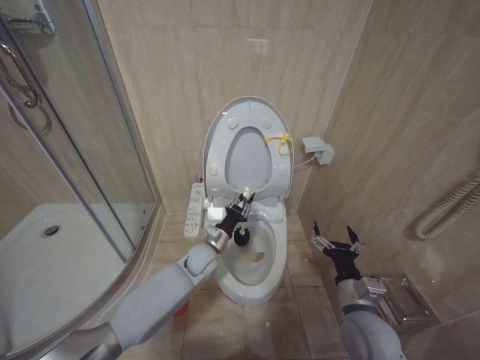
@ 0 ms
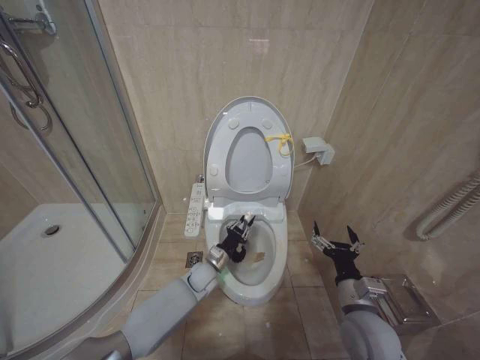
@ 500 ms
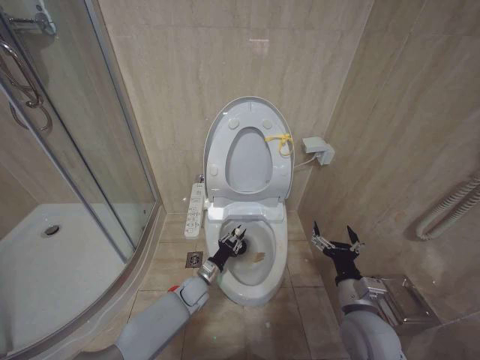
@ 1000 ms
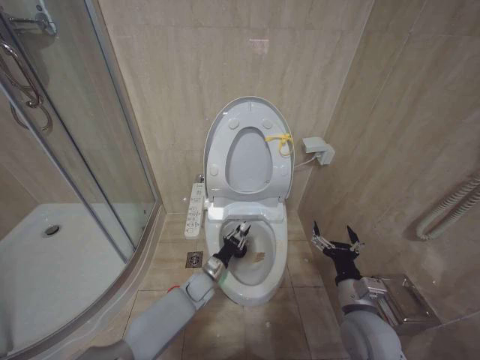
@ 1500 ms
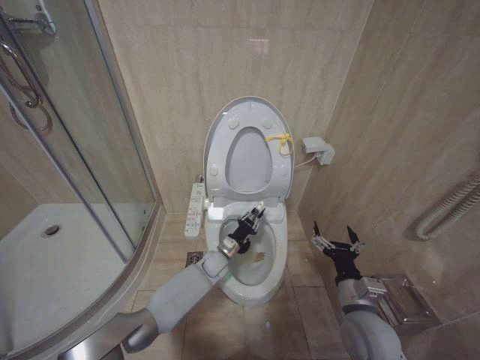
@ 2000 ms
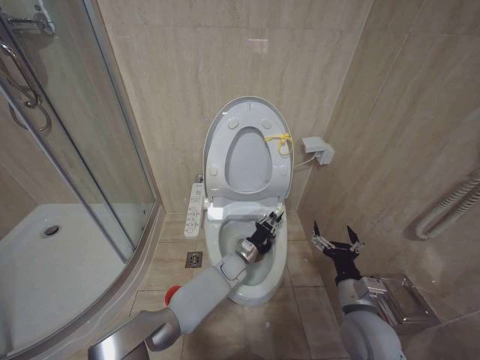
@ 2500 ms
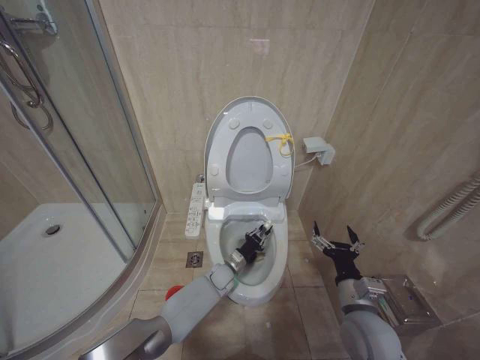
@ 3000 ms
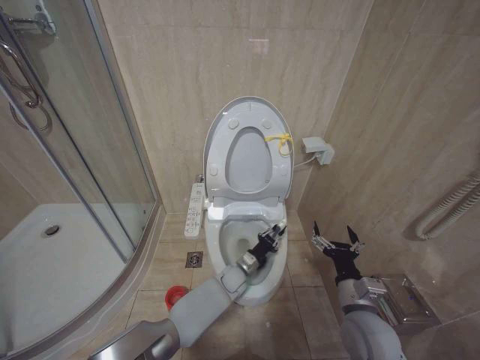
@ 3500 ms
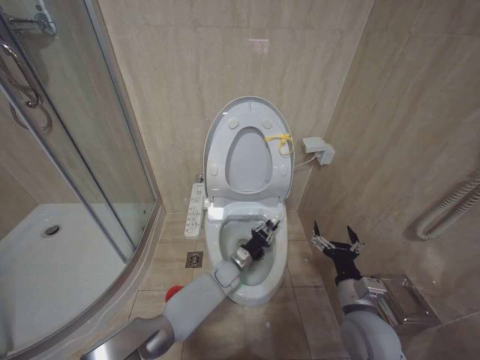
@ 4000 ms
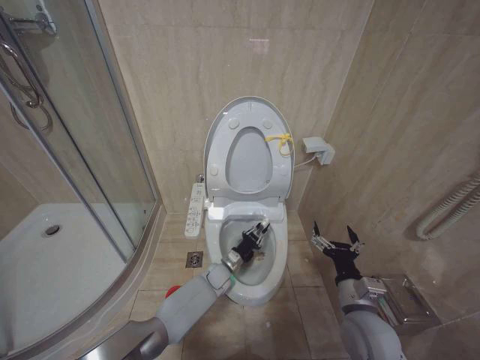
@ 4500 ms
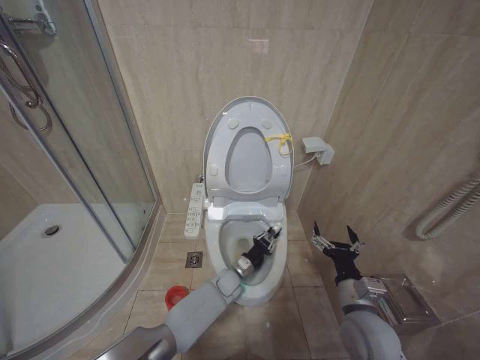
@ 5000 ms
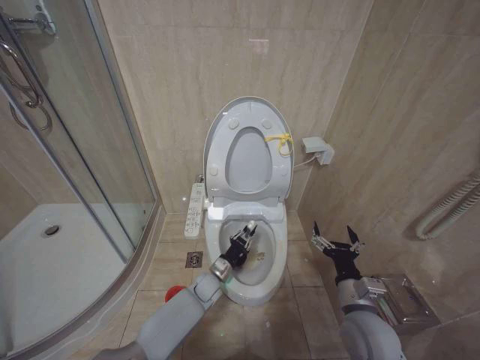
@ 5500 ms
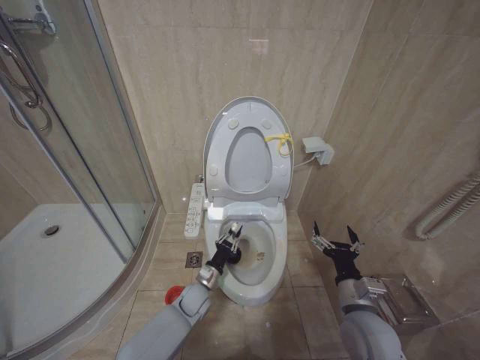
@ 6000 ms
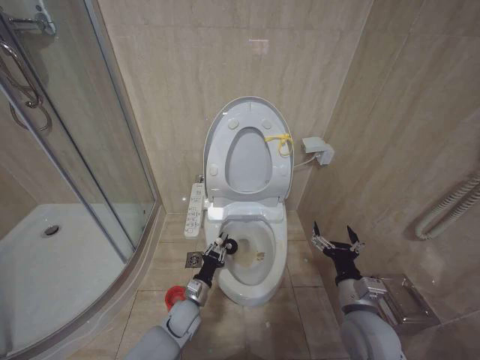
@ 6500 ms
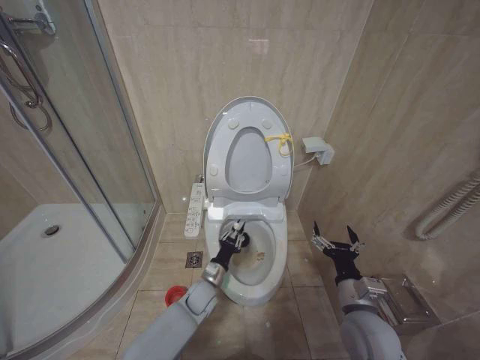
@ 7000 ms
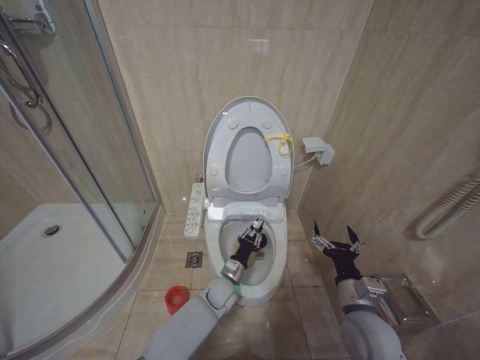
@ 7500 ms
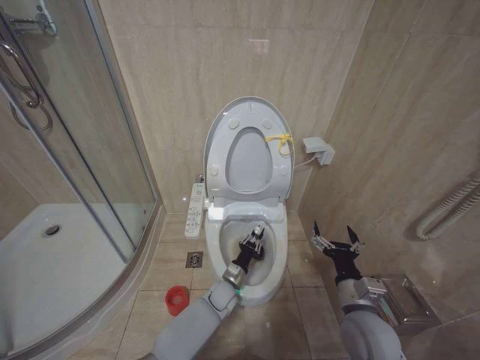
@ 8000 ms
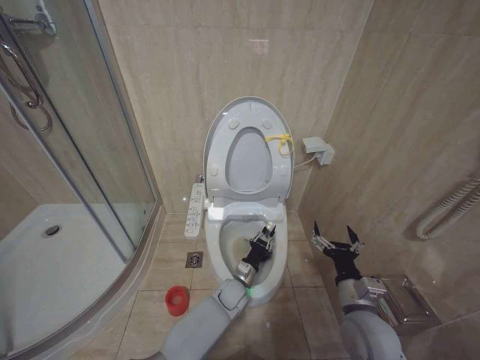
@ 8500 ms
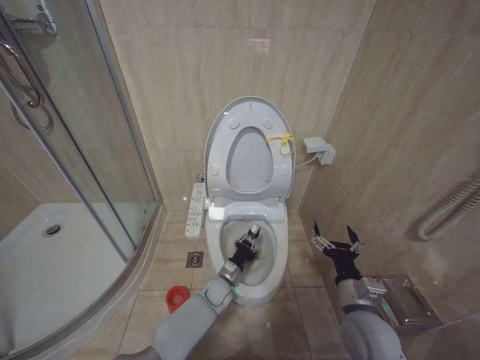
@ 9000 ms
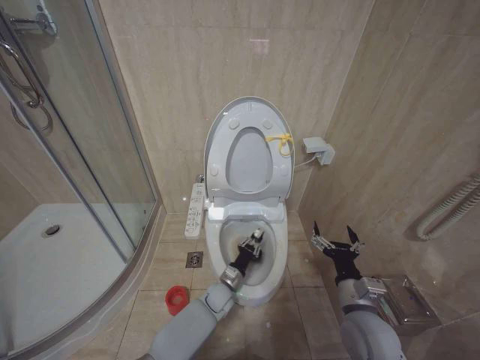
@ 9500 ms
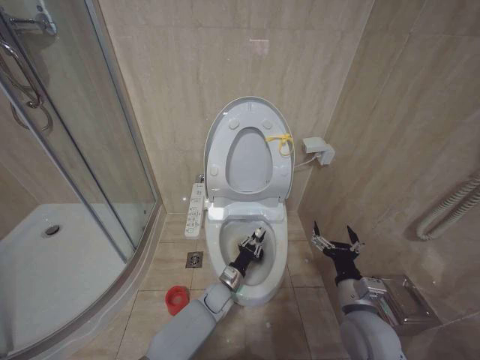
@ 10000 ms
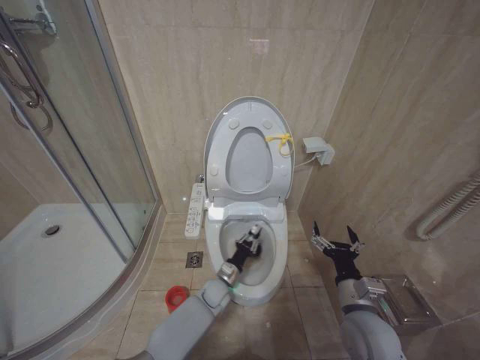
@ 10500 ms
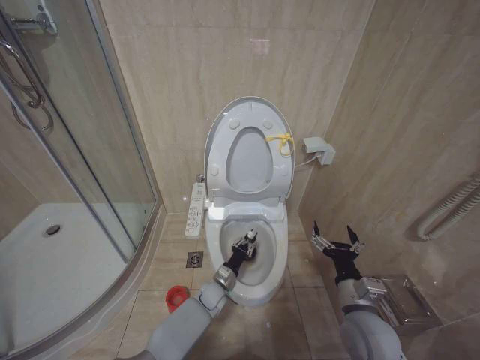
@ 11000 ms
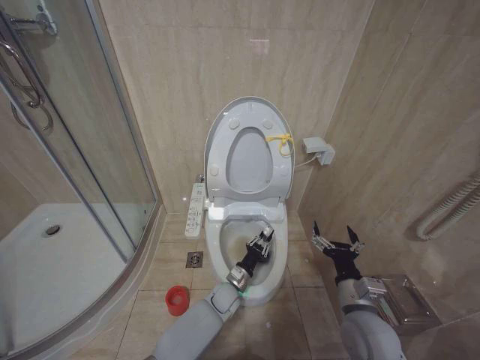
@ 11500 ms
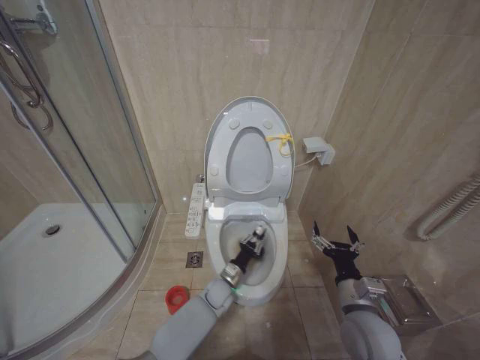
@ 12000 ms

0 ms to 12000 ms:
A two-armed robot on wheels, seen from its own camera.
Task of the whole recording: Open the toilet lid, clean the toilet bowl with a toilet brush, close the toilet lid, and flush.
0 ms to 2000 ms: The left gripper travels downward by some 10 cm.
2000 ms to 4000 ms: The left gripper swings left and right, some 10 cm each way, with 3 reversals.
4000 ms to 6000 ms: The left gripper moves to the left and backward, some 10 cm.
6000 ms to 8000 ms: The left gripper moves to the right, some 10 cm.

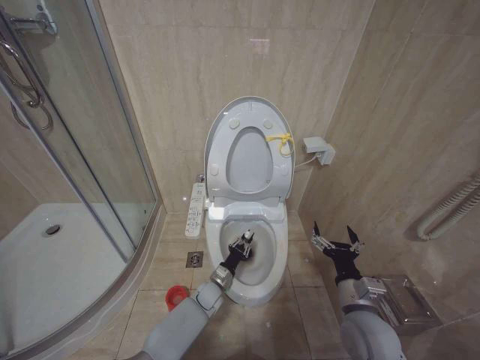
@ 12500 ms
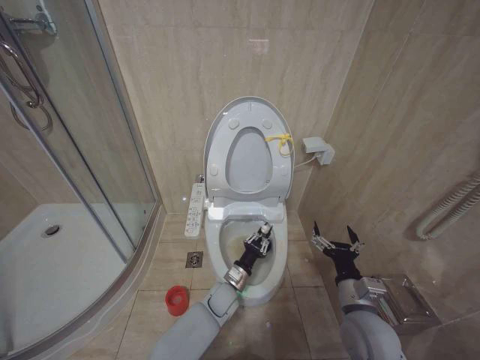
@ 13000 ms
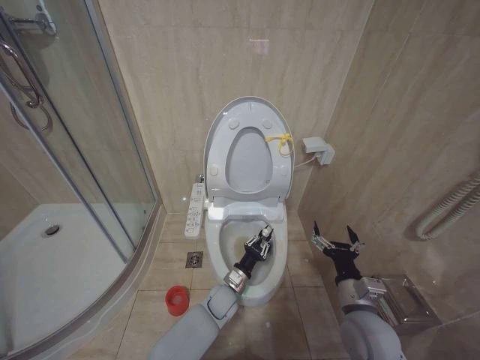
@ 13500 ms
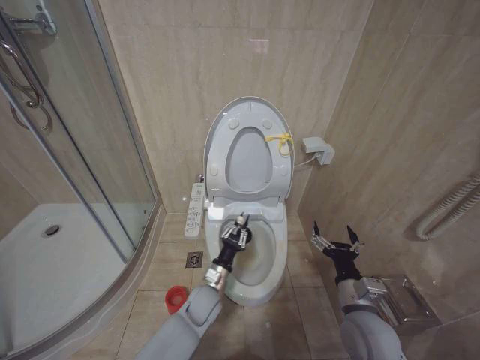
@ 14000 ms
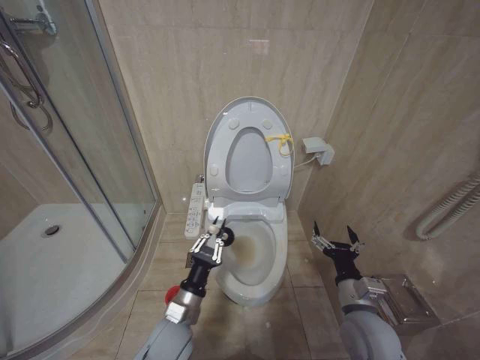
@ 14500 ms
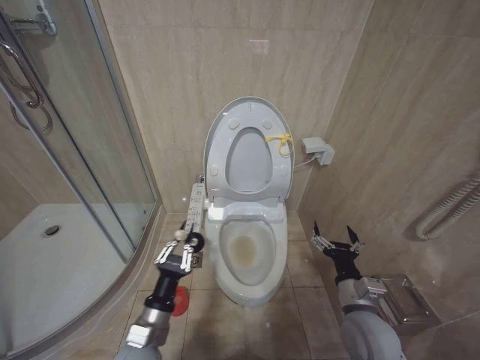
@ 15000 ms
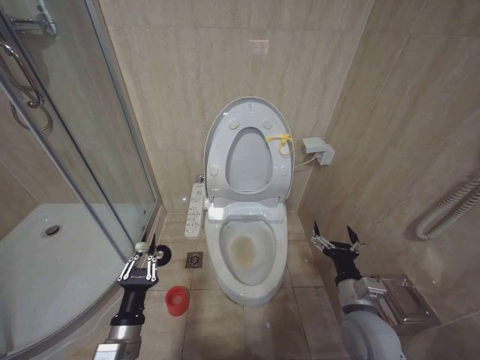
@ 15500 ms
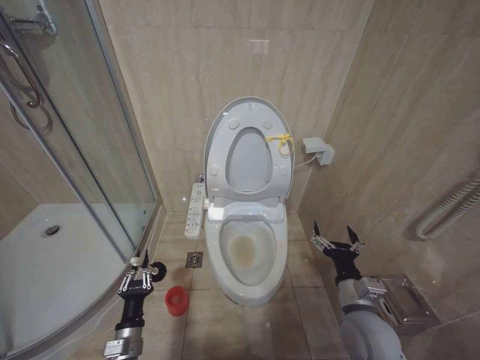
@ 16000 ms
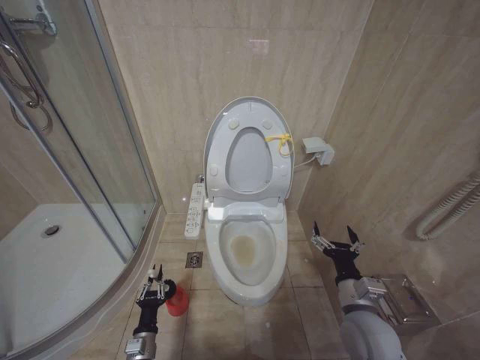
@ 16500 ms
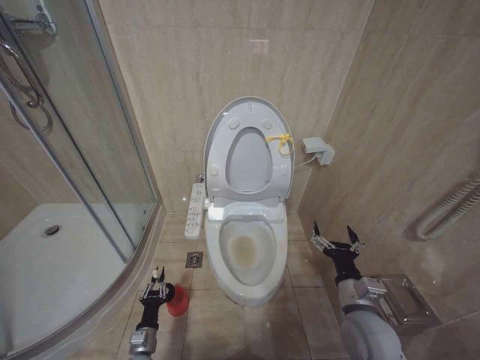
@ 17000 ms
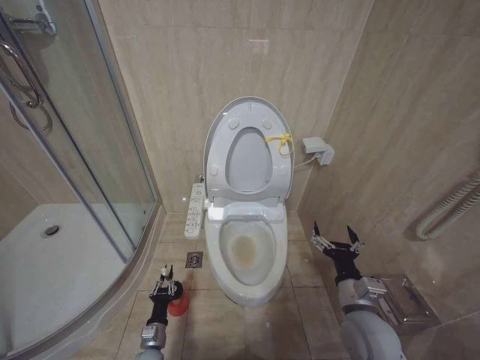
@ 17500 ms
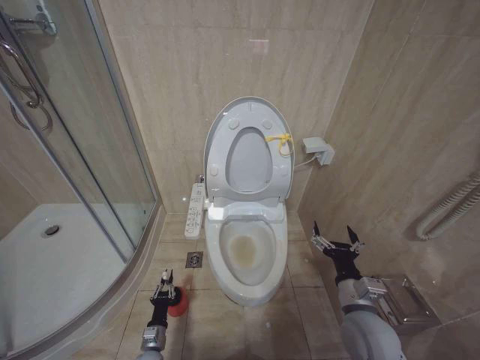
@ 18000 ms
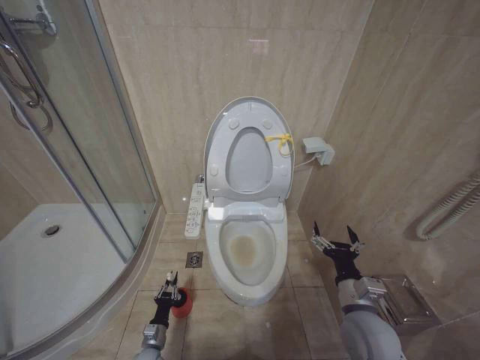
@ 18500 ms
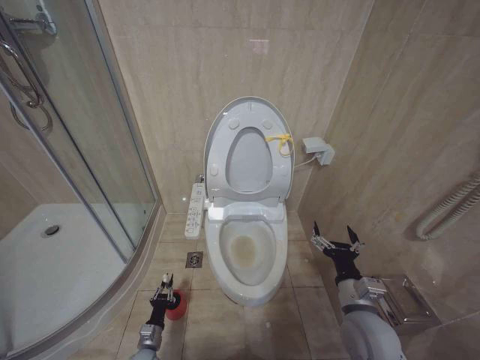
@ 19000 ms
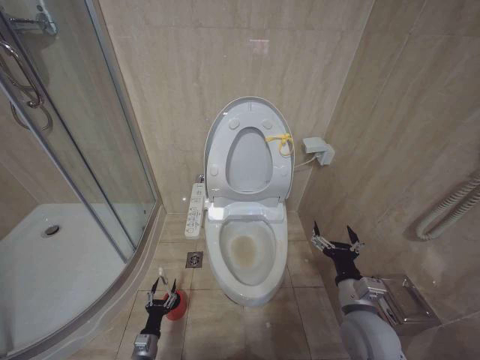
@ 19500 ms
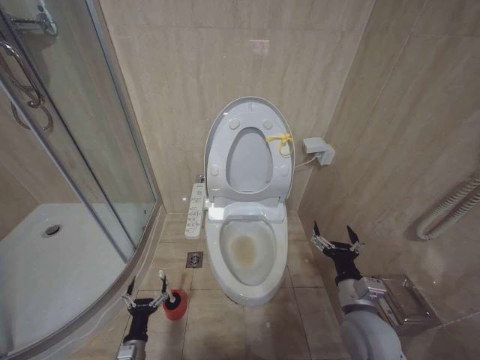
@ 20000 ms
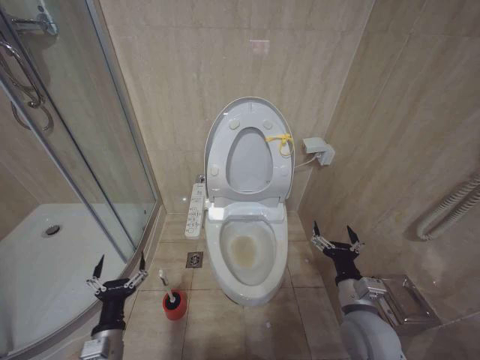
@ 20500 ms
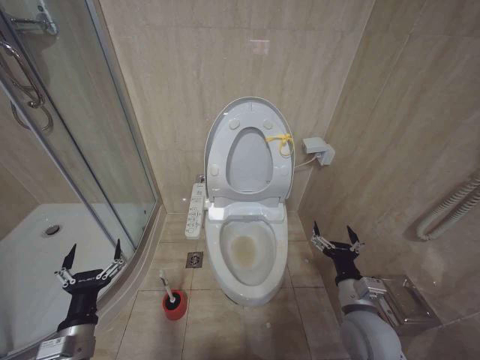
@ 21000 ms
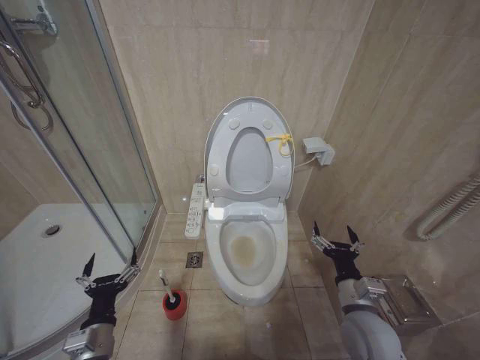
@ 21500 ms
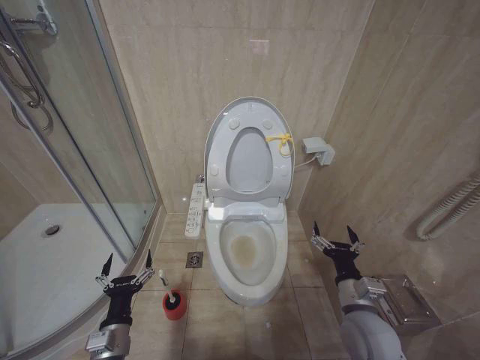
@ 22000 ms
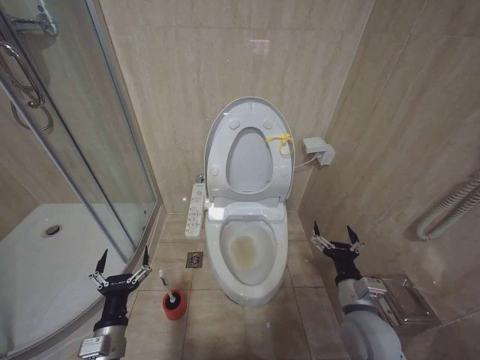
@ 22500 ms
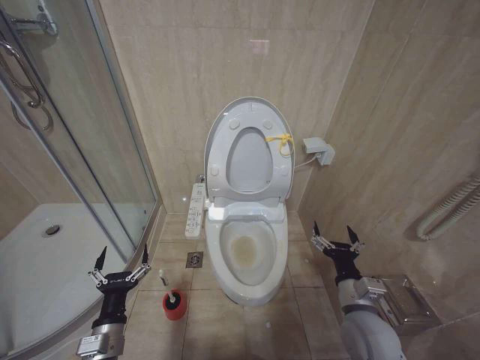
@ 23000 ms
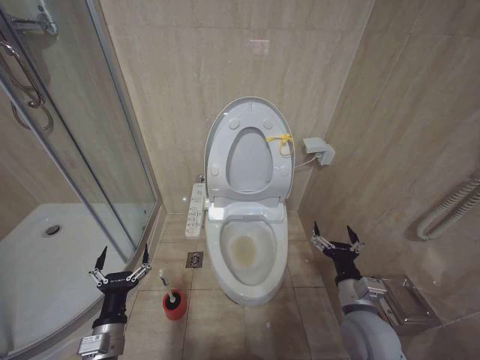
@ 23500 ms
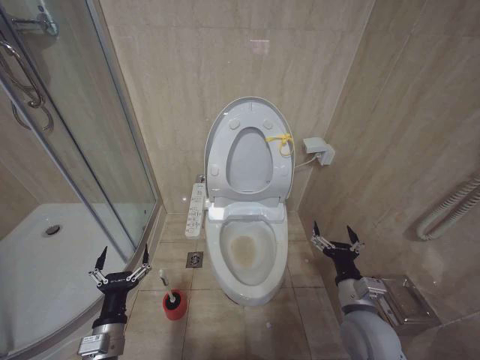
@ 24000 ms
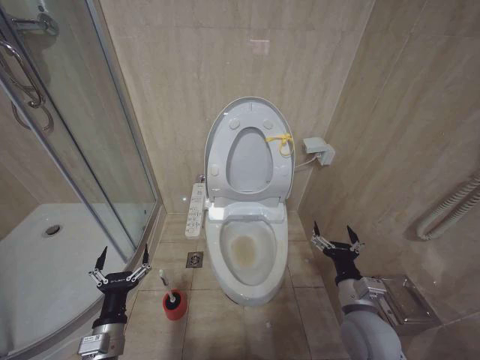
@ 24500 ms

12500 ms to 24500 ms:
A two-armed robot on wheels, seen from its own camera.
Task of the whole recording: Open the toilet lid, clean the toilet bowl with a toilet brush, close the toilet lid, and flush.
12500 ms to 14500 ms: The left gripper goes about 20 cm upward, backward and to the left.
14500 ms to 16500 ms: The left gripper goes approximately 20 cm downward, to the left and backward.
16500 ms to 18500 ms: The left gripper shifts roughly 15 cm downward and forward.
18500 ms to 20500 ms: The left gripper is displaced upward by some 25 cm, and opens its fingers.
22500 ms to 24500 ms: Both grippers stay put.

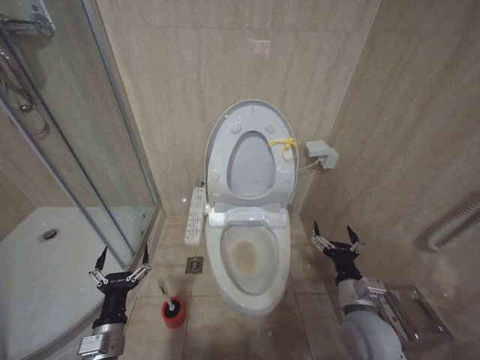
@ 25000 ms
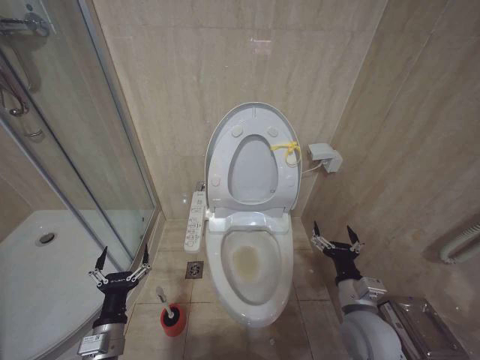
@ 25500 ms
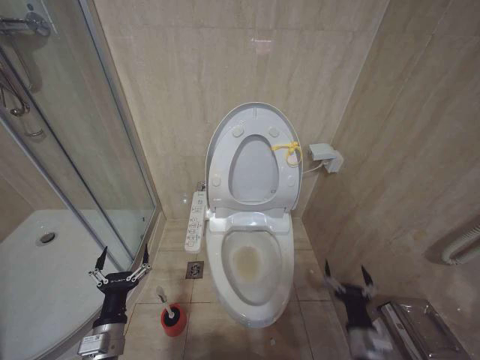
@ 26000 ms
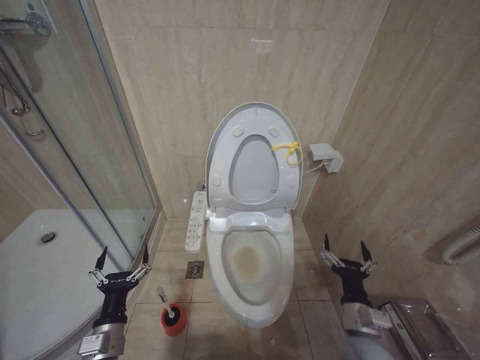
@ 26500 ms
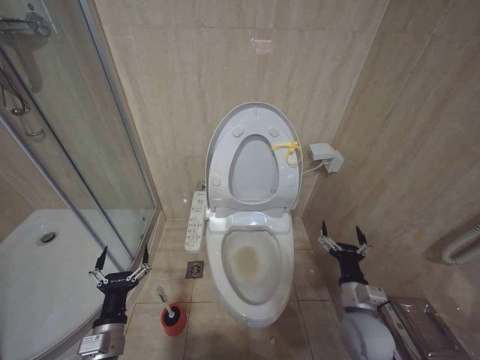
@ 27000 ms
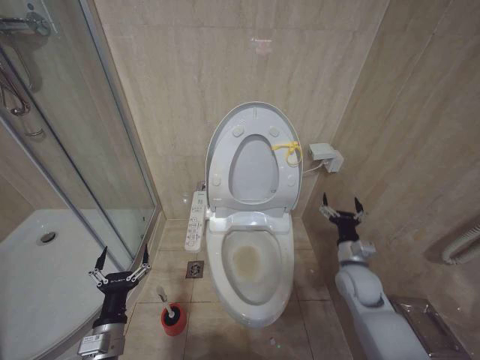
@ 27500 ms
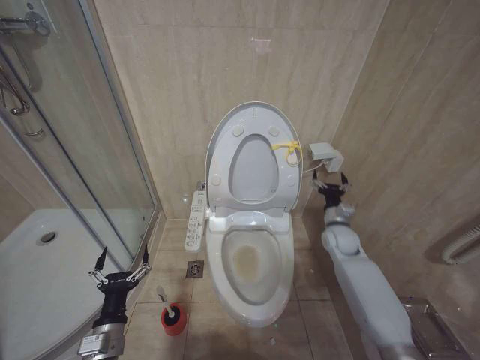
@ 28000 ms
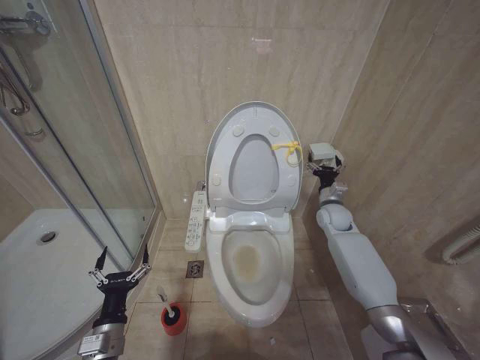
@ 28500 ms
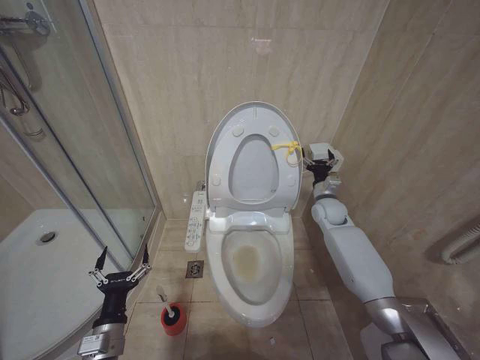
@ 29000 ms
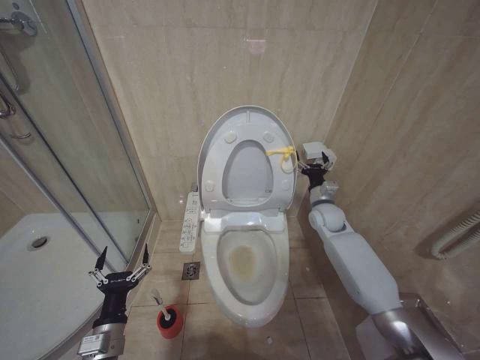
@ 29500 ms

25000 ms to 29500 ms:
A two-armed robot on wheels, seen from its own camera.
Task of the whole recording: Open the toilet lid, clean the toilet bowl with a toilet brush, close the toilet lid, and flush.
27000 ms to 29500 ms: The right gripper moves forward, approximately 30 cm.
